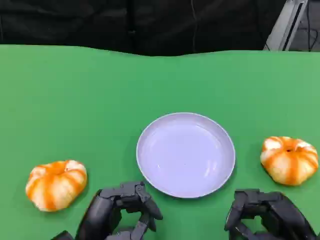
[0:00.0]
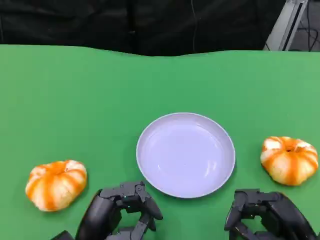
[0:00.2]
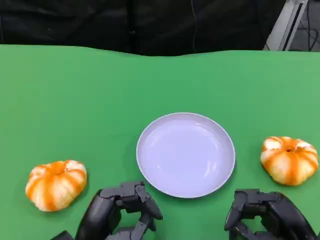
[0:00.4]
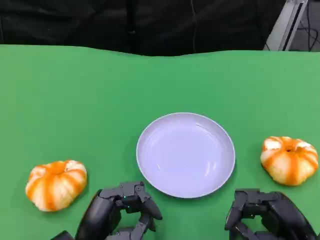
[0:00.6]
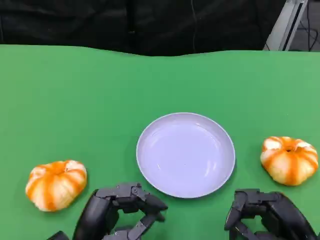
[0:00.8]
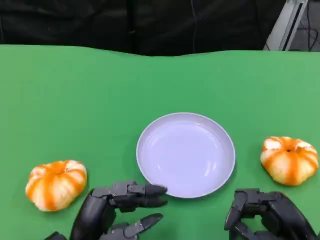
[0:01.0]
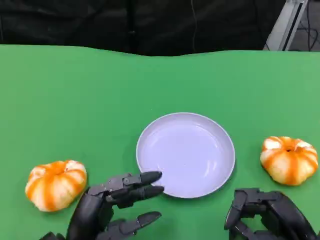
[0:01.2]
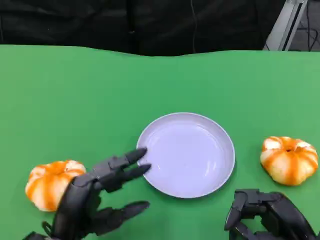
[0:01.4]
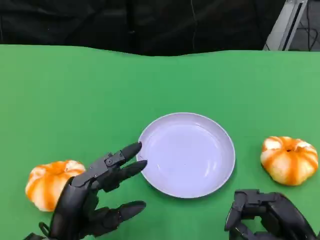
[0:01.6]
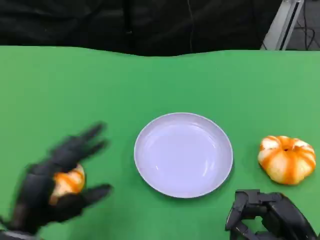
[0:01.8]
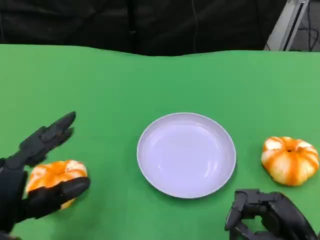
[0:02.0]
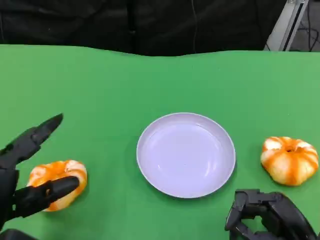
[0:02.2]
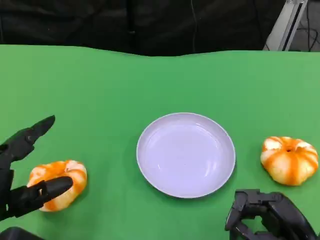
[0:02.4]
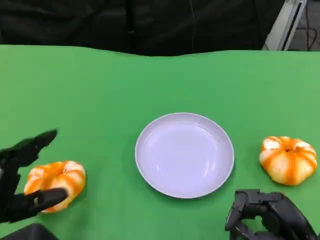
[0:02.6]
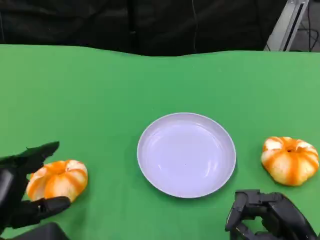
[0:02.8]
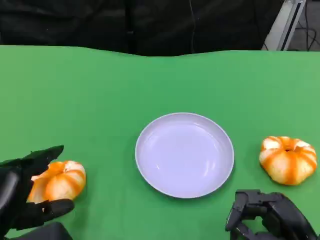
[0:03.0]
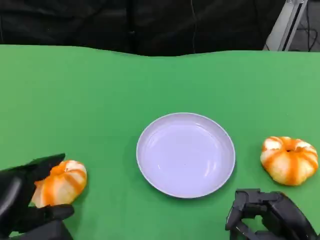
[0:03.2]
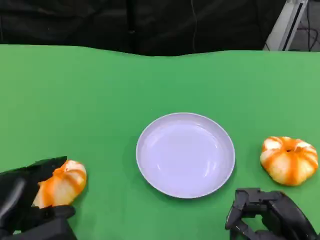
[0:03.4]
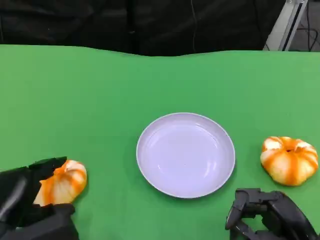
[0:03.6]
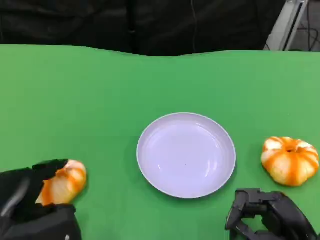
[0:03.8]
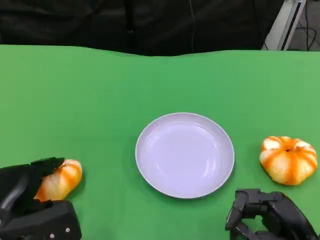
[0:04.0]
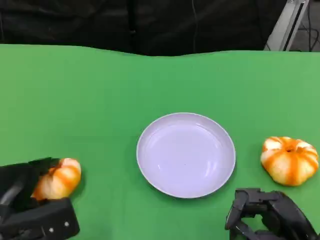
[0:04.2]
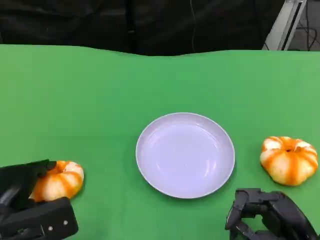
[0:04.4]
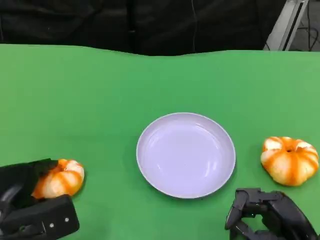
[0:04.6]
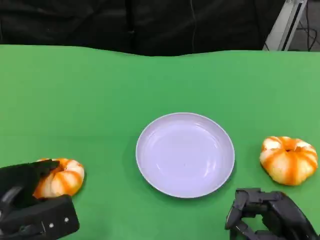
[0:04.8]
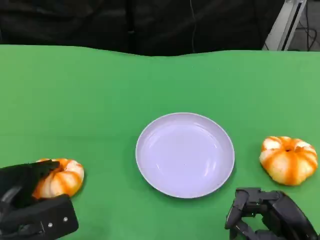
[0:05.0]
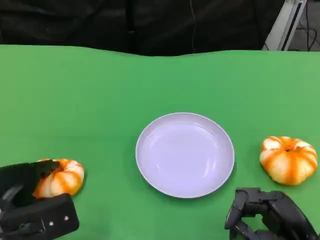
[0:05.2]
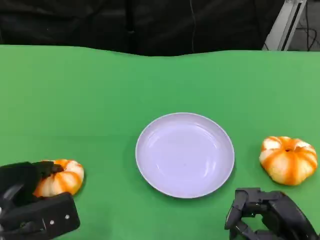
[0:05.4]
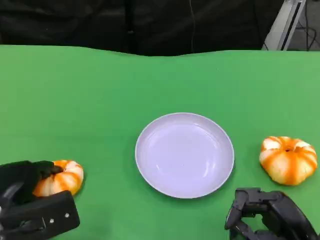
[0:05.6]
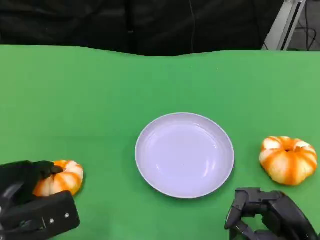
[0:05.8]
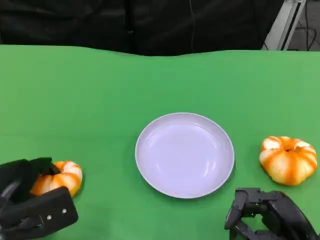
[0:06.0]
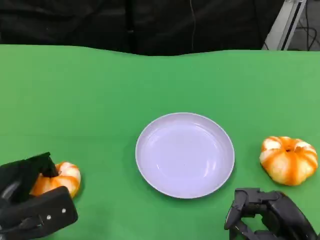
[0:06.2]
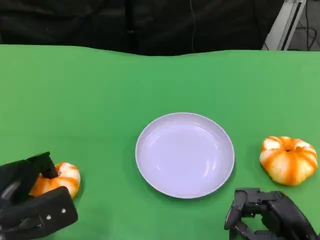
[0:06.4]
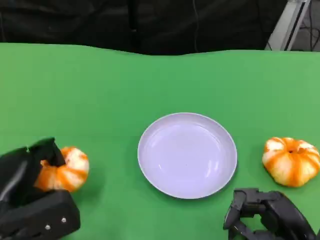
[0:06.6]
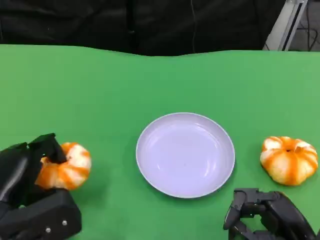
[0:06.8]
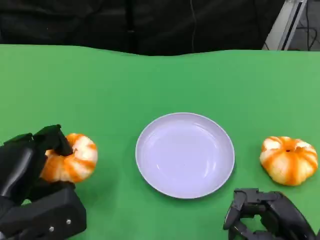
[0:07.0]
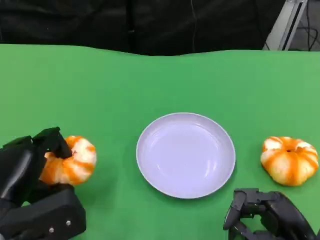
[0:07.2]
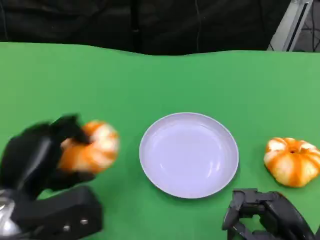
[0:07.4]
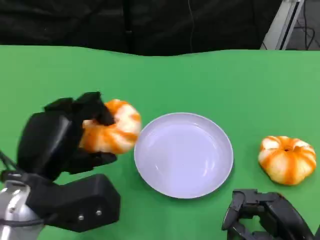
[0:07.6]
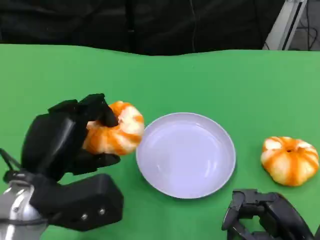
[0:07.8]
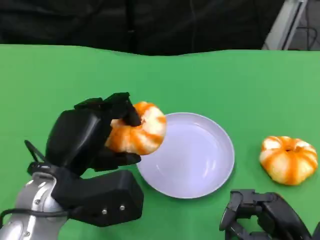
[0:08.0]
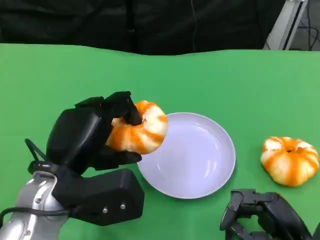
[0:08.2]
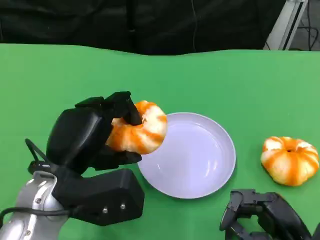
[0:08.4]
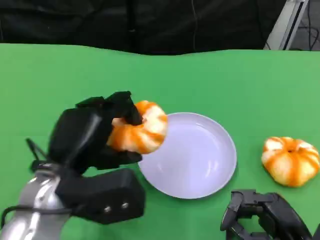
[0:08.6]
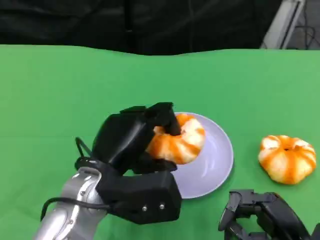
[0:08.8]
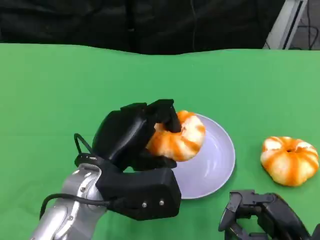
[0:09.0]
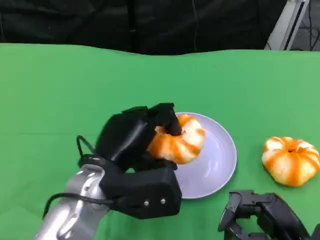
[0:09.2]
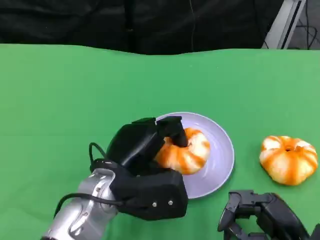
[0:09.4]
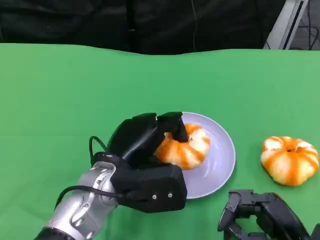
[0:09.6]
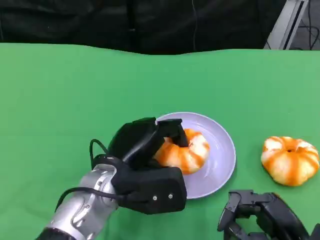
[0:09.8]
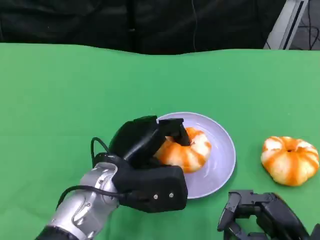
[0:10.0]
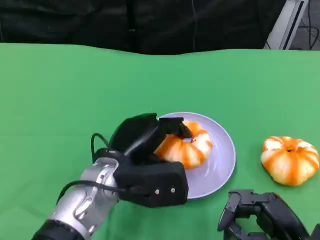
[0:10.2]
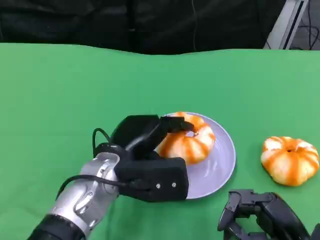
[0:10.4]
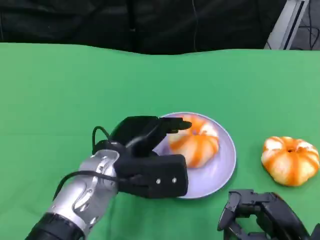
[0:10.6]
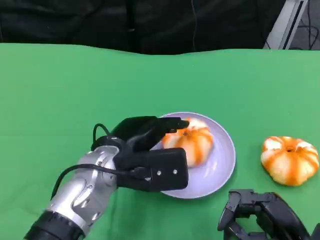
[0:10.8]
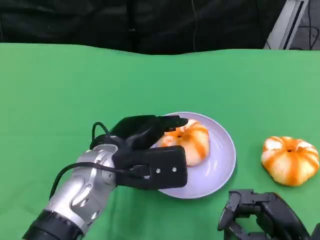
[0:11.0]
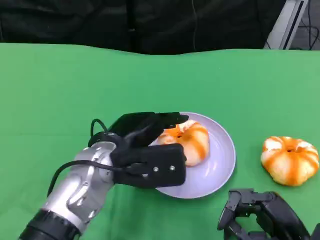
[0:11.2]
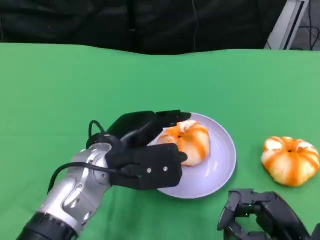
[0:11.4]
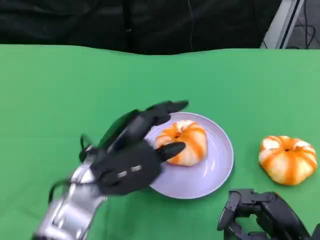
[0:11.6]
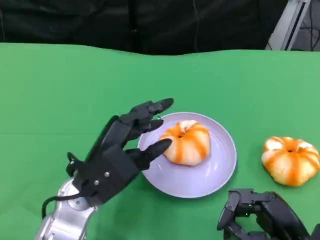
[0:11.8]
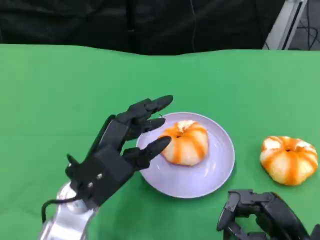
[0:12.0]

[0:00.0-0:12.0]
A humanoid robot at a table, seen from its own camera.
Task of the whole recording: Grasp the bread from the table and place it into the plate.
0:00.0 to 0:01.6: The hands make only small movements.
0:01.6 to 0:03.0: The left hand goes about 10 cm to the left.
0:03.0 to 0:04.4: The left hand changes place by roughly 5 cm.
0:04.4 to 0:06.0: The hands move only a little.
0:06.0 to 0:07.6: The left hand moves upward and to the right, some 10 cm.
0:07.6 to 0:09.0: The left hand moves to the right, roughly 10 cm.
0:09.0 to 0:10.4: The hands move only a little.

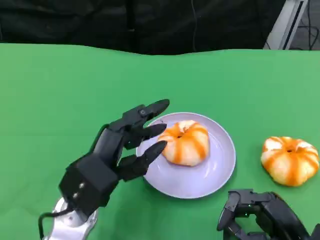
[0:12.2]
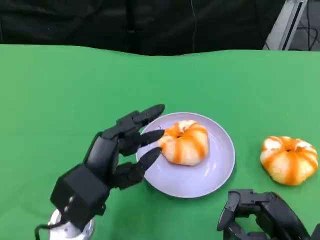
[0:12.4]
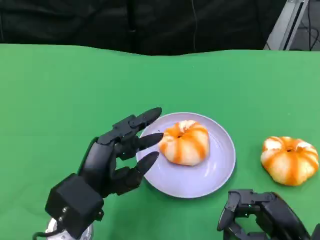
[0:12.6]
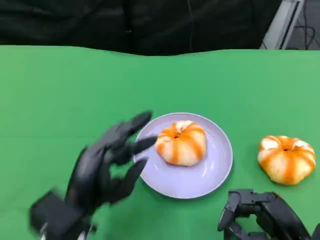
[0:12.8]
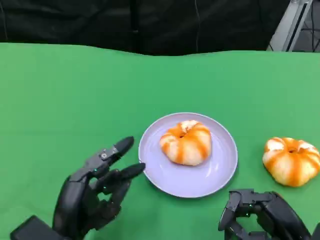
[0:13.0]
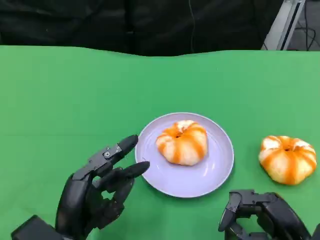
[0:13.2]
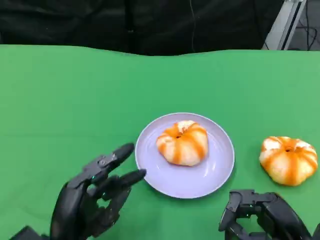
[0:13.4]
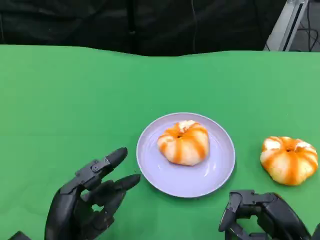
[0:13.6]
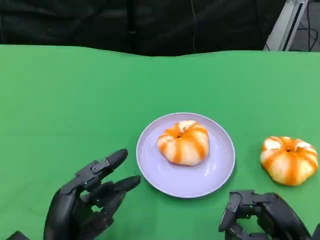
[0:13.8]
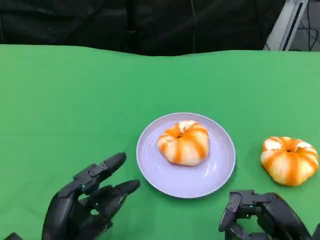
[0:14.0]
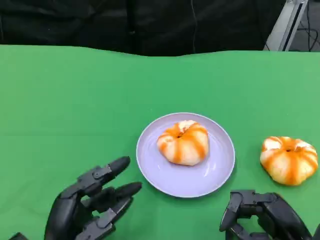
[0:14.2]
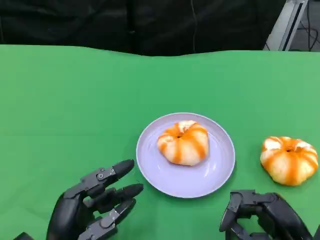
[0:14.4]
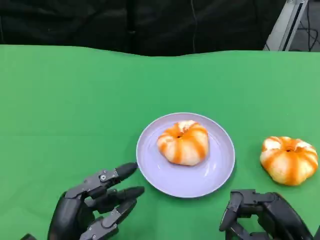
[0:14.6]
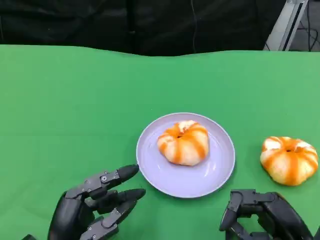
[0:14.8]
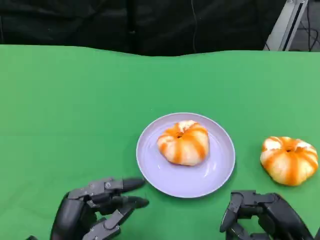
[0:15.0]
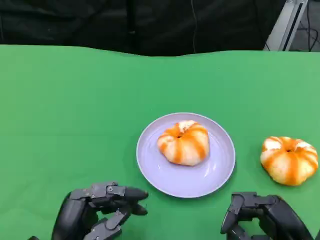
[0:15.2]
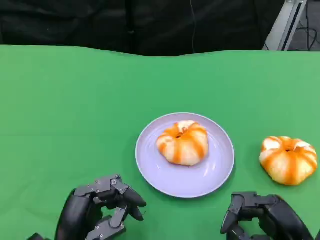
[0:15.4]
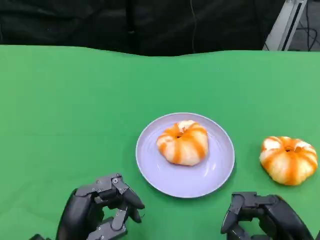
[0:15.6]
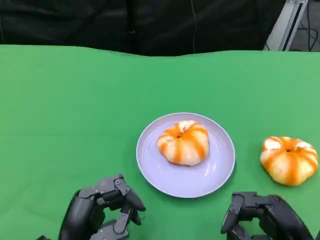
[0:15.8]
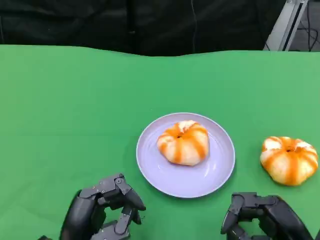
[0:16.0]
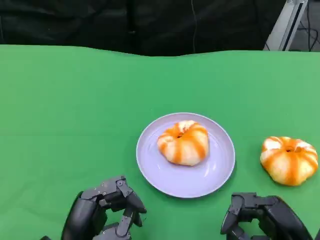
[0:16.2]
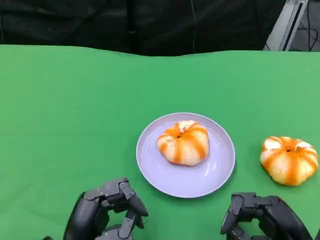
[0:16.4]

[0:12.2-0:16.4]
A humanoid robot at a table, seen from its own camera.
Task of the whole recording: Grasp the bread from the table and place it into the plate.
0:12.2 to 0:13.6: The left hand moves backward and downward, about 10 cm.
0:13.6 to 0:15.0: Neither hand changes place.
0:15.0 to 0:16.4: There are only small adjustments of the hands.

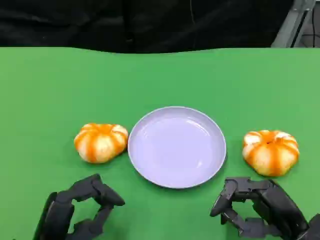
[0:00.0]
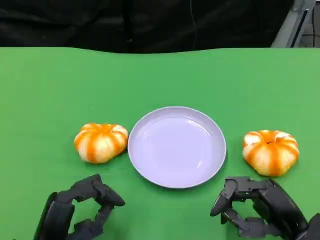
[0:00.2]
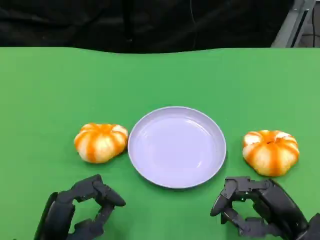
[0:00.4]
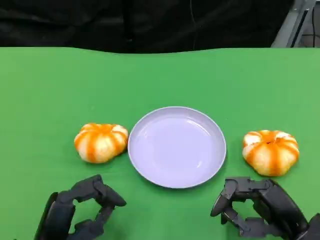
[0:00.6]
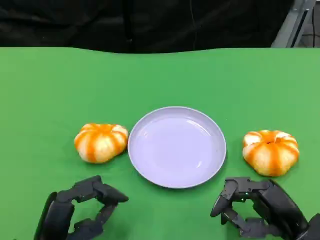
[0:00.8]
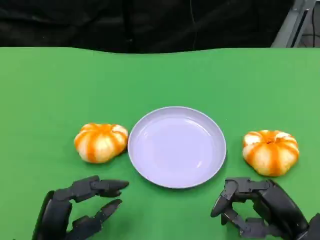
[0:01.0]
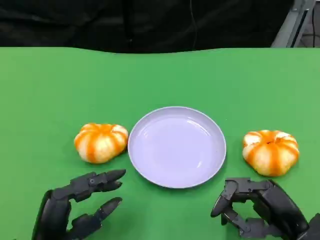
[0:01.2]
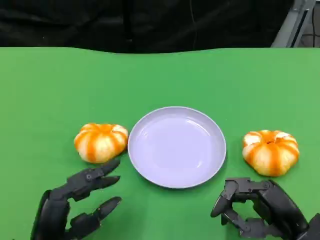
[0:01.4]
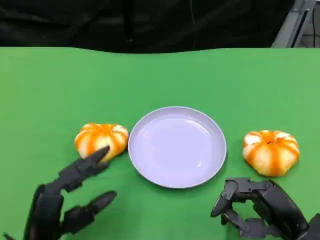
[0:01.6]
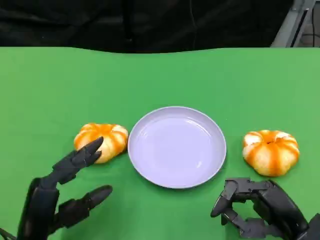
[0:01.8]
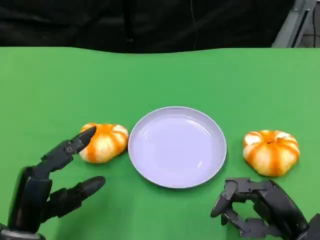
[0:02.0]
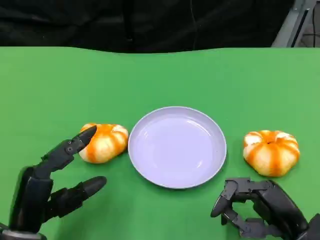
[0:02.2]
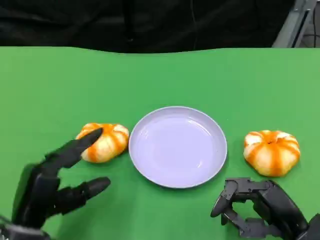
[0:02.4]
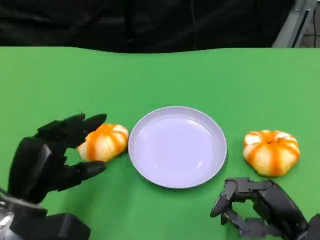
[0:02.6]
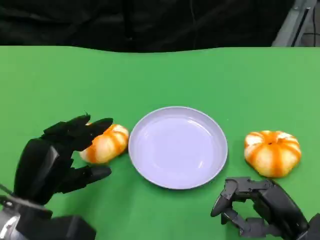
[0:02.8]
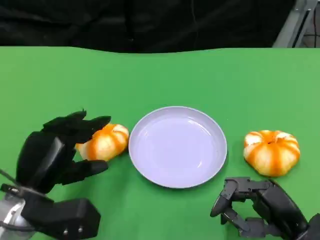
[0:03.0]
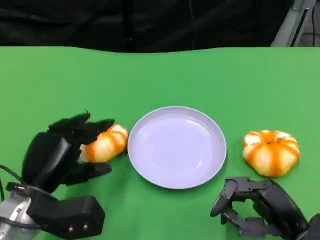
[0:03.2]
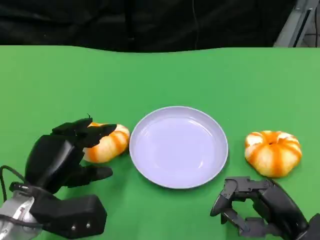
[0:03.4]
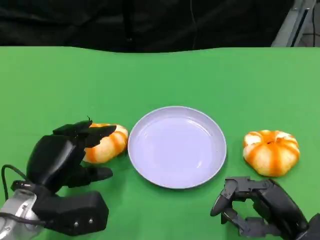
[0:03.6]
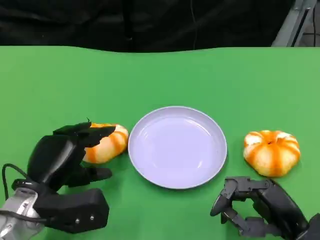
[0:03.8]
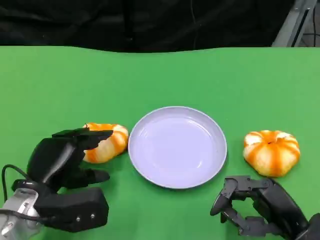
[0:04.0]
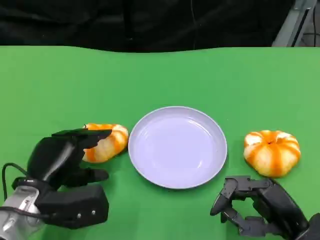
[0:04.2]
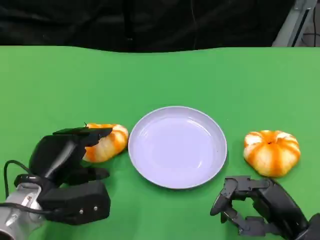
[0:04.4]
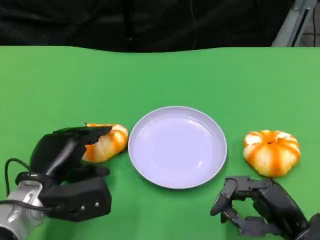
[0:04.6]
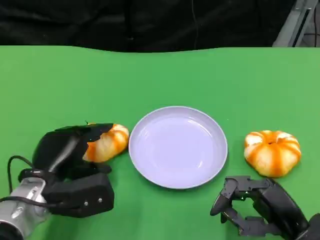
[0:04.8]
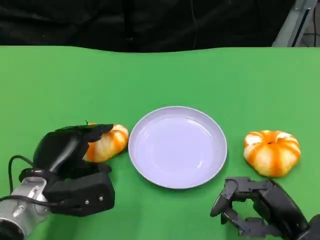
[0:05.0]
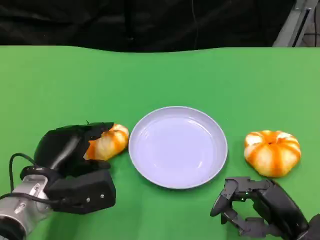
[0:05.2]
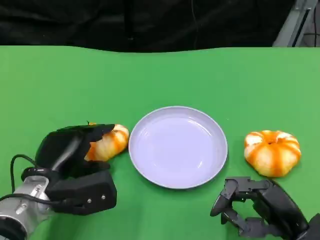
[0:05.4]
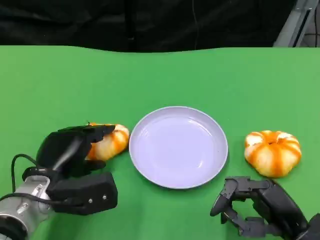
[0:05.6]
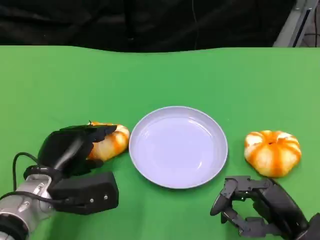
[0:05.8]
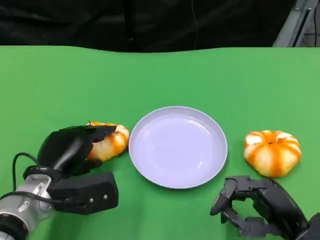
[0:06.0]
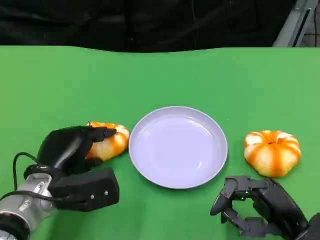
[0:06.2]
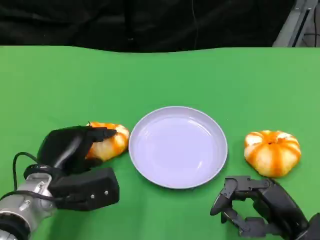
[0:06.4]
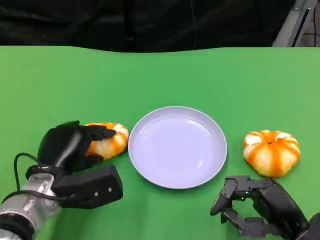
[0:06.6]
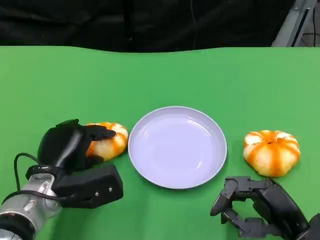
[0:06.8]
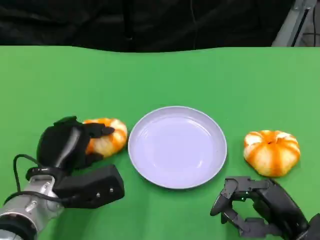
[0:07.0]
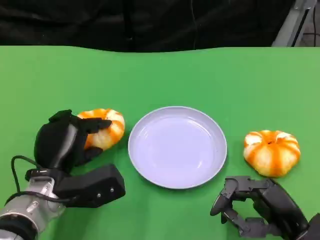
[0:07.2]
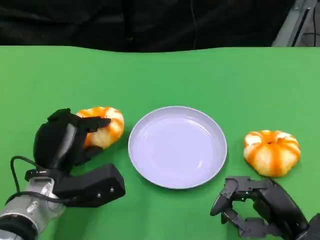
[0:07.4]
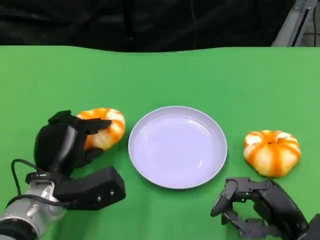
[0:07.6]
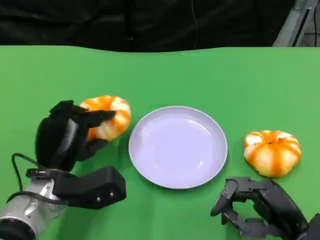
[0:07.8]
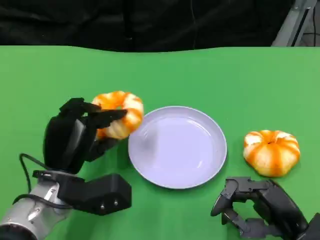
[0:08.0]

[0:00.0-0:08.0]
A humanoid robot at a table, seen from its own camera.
Task of the whole recording: Grasp the bread from the table and place it into the plate.
0:00.0 to 0:01.6: The hands stay close to where they were, moving slightly.
0:01.6 to 0:03.2: The left hand travels forward by some 5 cm.
0:03.2 to 0:04.8: The hands stay close to where they were, moving slightly.
0:04.8 to 0:06.4: The two hands keep their place.
